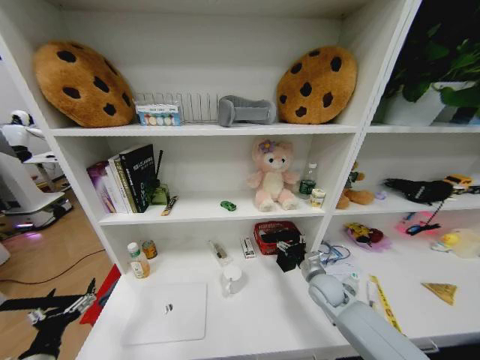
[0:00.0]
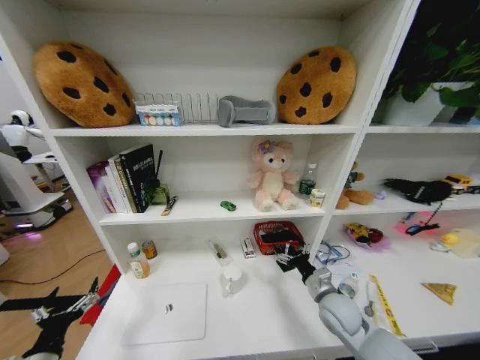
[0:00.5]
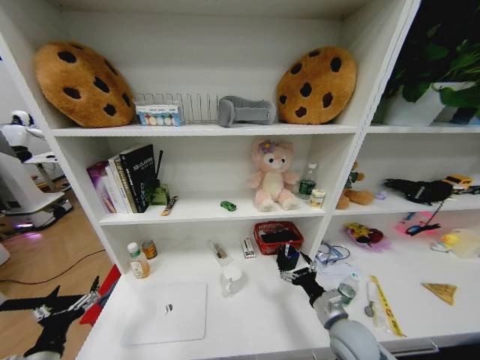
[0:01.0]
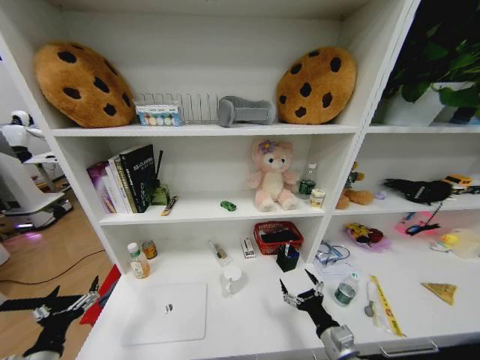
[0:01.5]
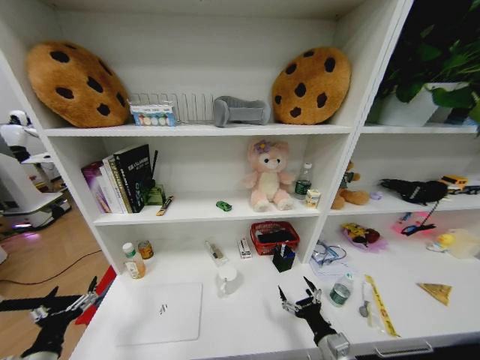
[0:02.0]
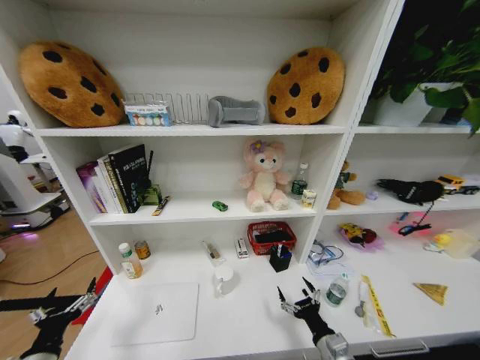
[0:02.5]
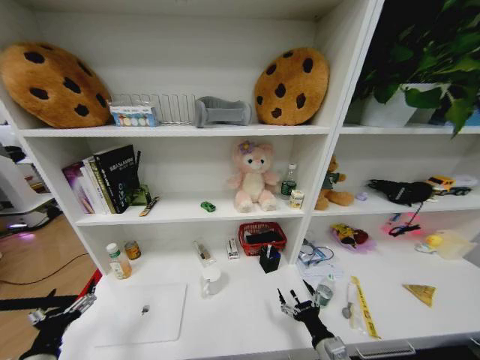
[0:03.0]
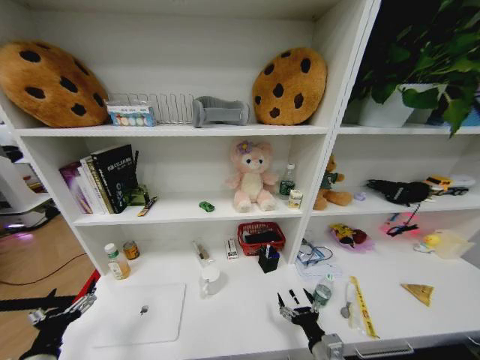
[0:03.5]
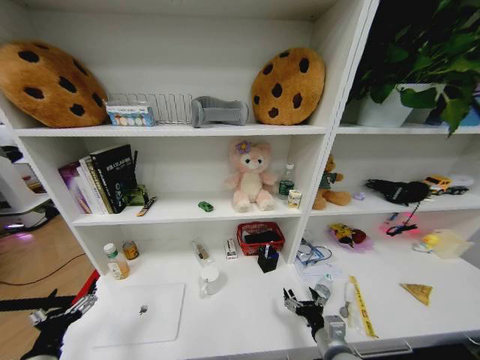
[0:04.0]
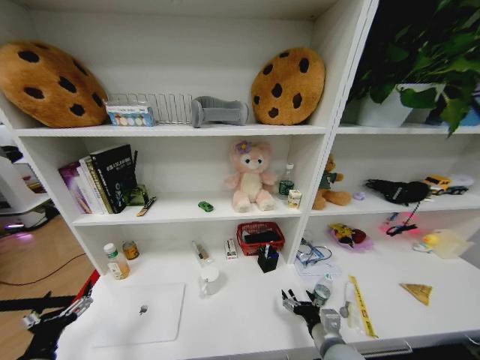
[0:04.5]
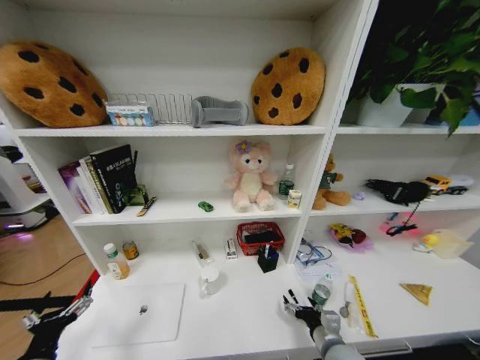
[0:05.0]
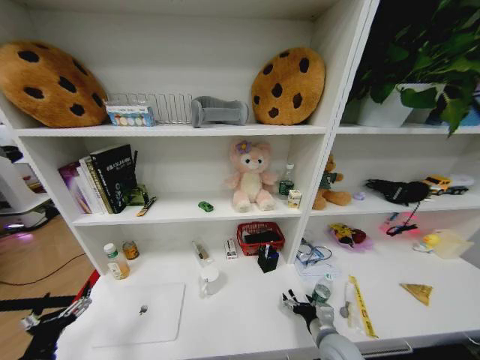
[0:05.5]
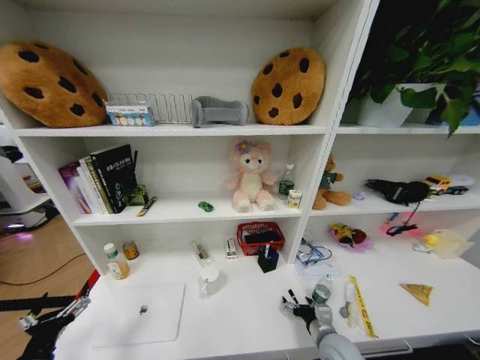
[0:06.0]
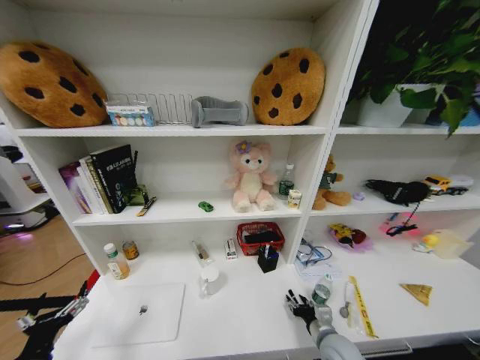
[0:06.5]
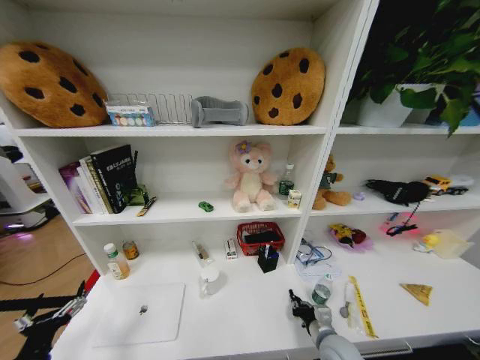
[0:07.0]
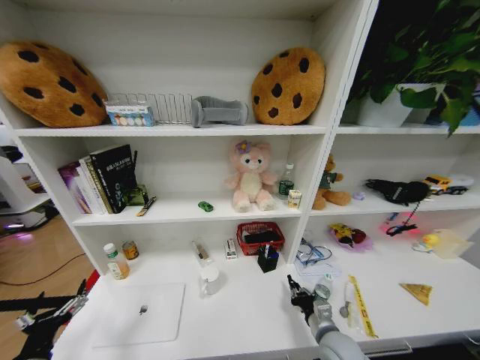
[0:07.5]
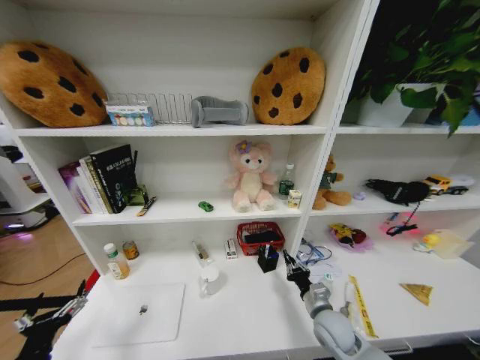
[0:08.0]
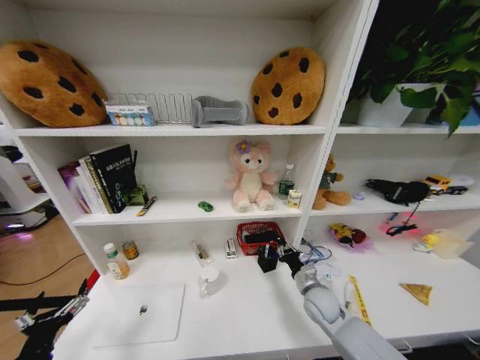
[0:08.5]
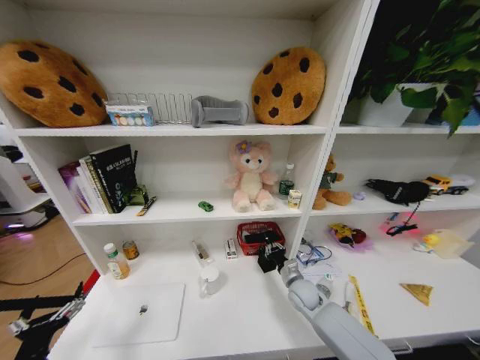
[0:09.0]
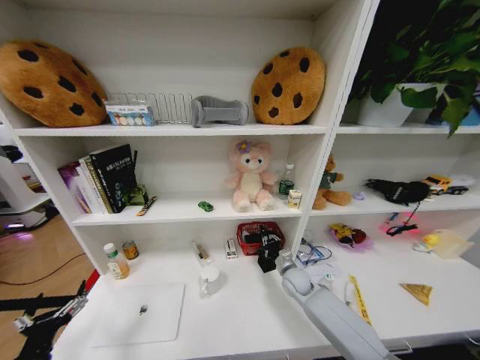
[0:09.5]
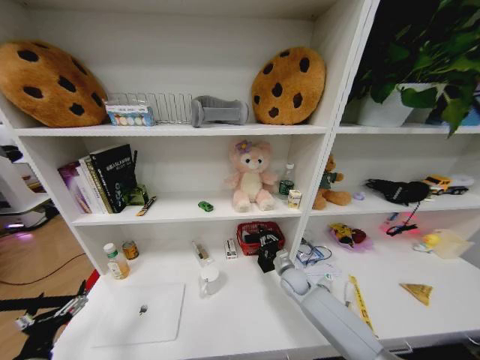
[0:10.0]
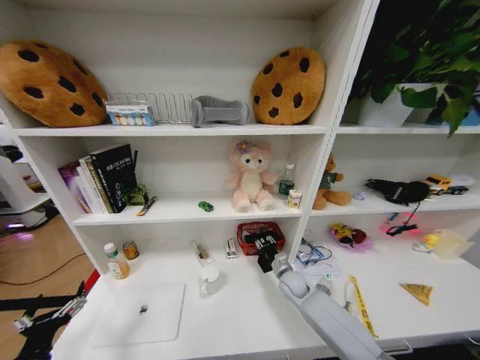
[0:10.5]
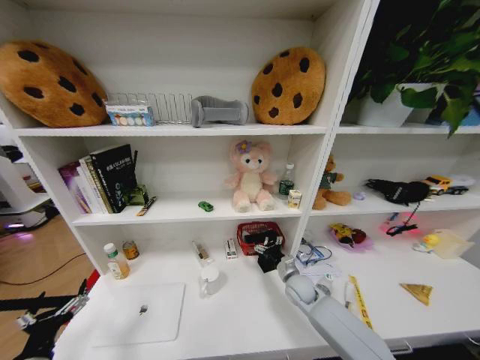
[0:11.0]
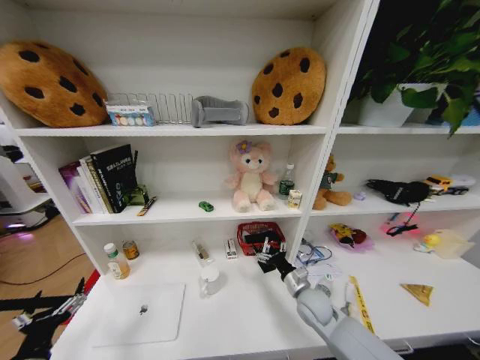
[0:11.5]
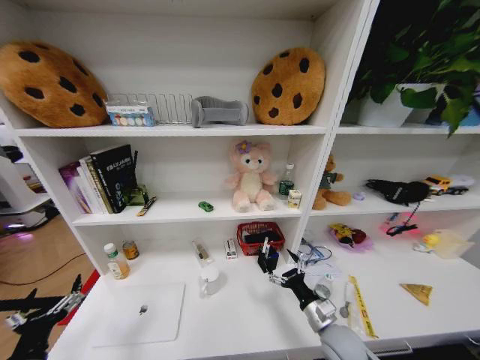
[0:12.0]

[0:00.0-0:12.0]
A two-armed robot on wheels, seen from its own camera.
Task of the whole recording: Organize the objects on the table.
0:00.0 to 0:02.0: The right gripper is displaced backward by about 20 cm.
0:04.0 to 0:06.0: The right gripper is displaced forward by approximately 5 cm.
0:06.0 to 0:08.0: The right gripper shifts about 5 cm forward, and closes its fingers.
0:08.0 to 0:10.0: The right gripper goes some 15 cm forward.
0:10.0 to 0:12.0: The right gripper heads backward, covering approximately 20 cm, and opens up.

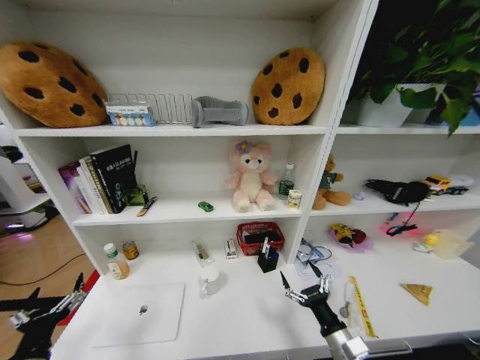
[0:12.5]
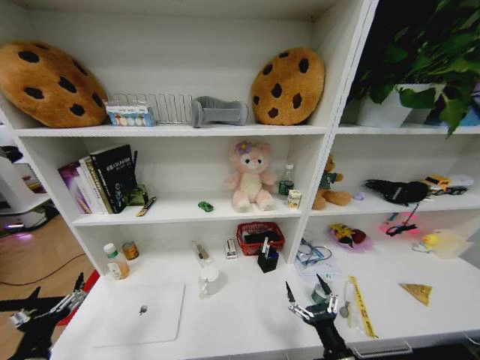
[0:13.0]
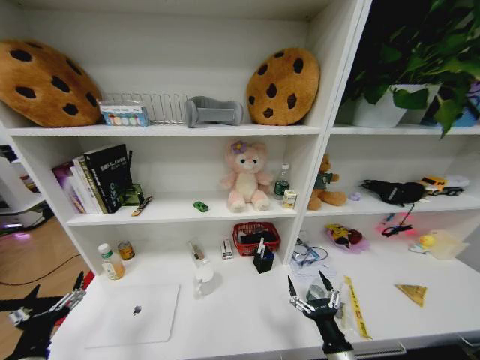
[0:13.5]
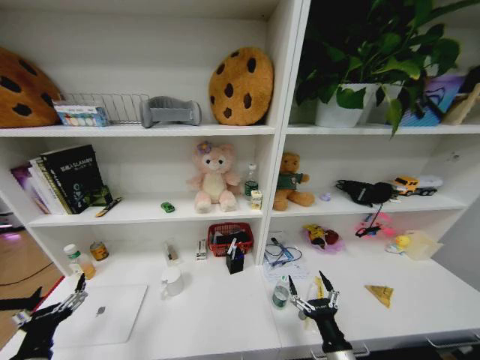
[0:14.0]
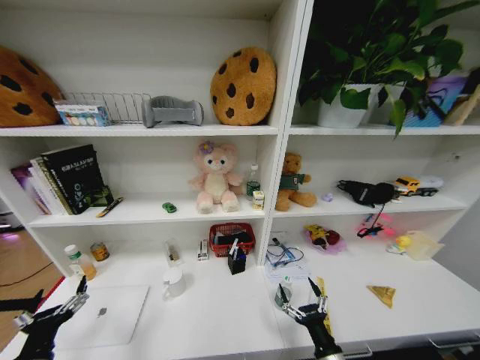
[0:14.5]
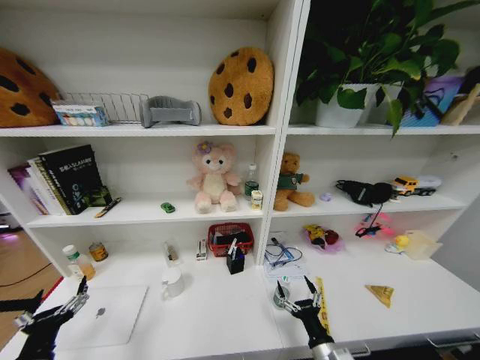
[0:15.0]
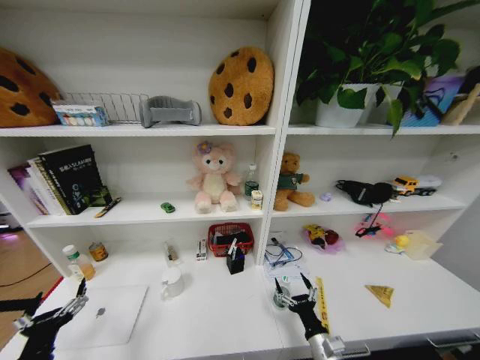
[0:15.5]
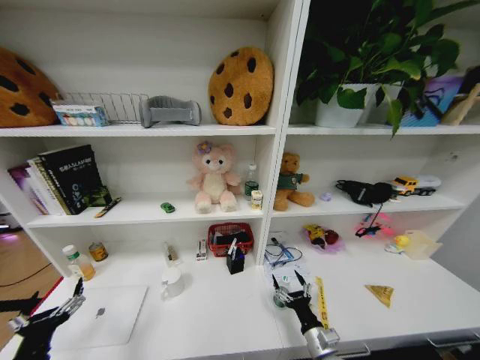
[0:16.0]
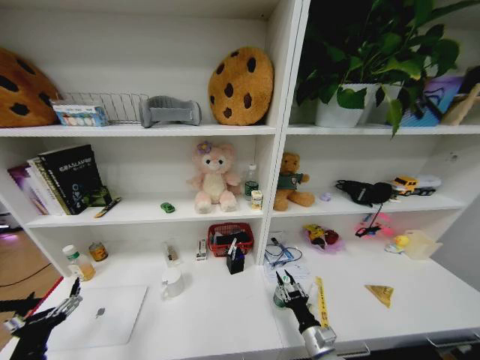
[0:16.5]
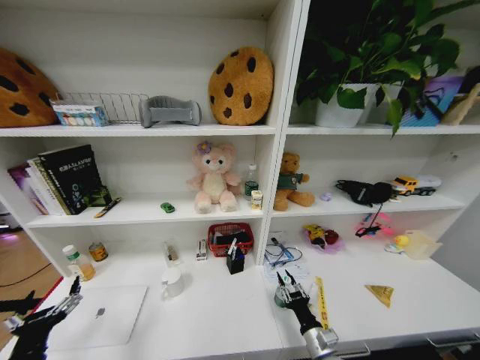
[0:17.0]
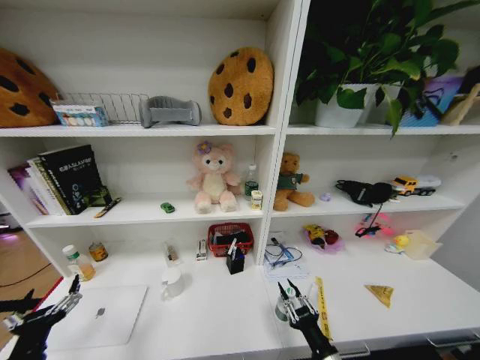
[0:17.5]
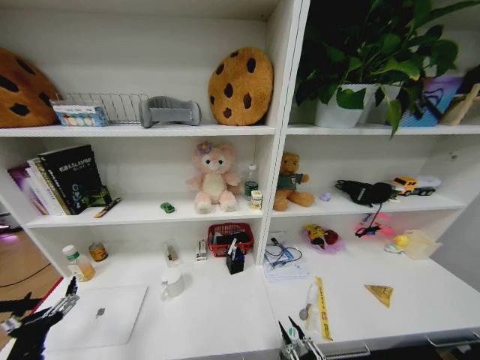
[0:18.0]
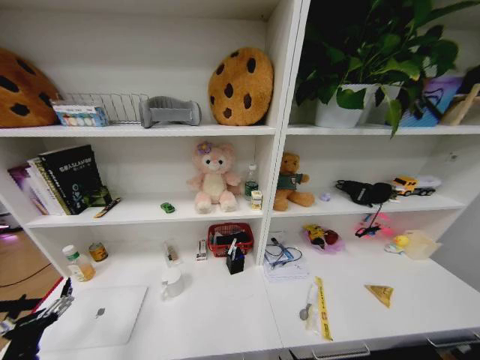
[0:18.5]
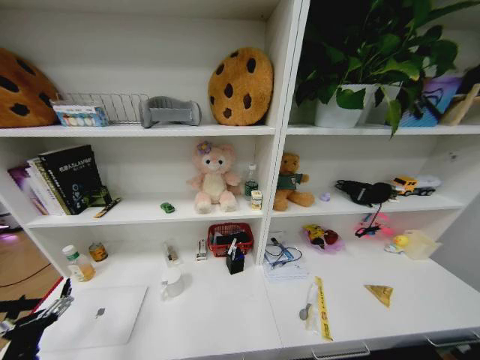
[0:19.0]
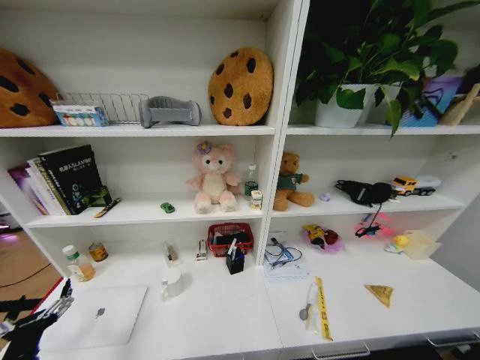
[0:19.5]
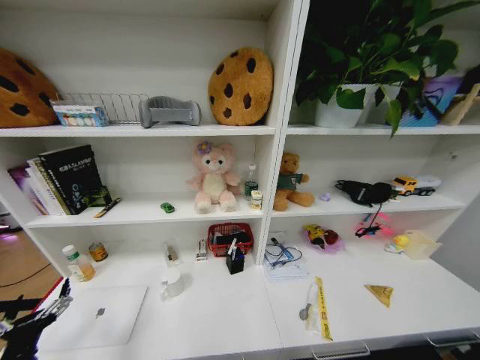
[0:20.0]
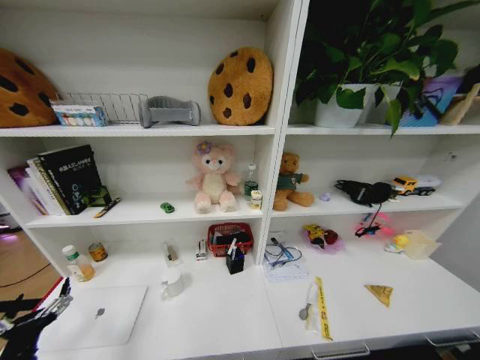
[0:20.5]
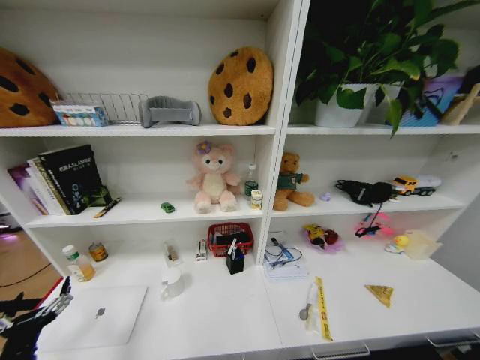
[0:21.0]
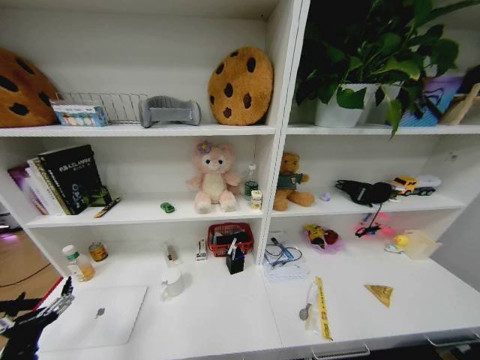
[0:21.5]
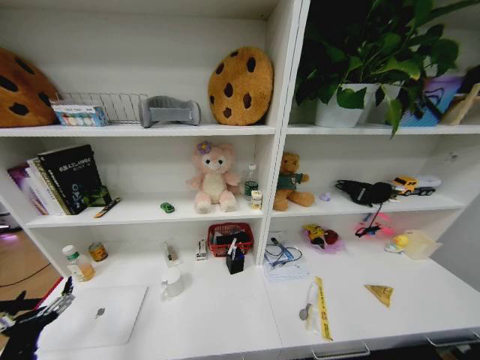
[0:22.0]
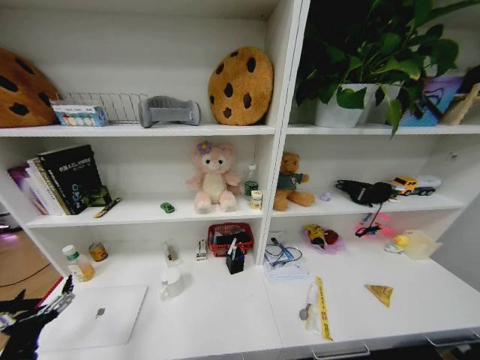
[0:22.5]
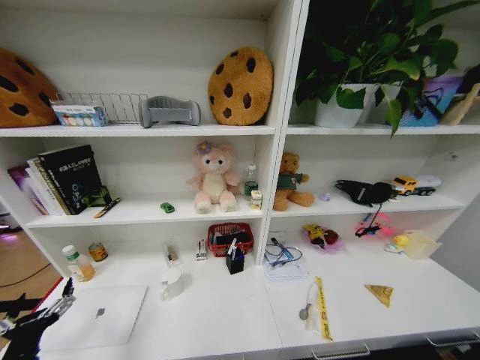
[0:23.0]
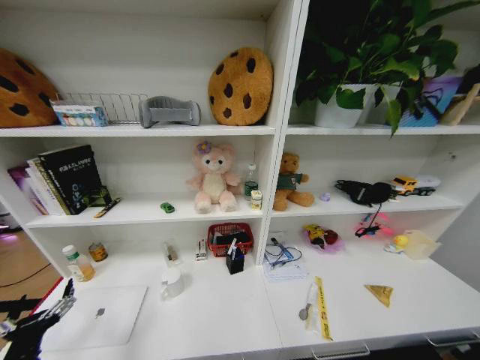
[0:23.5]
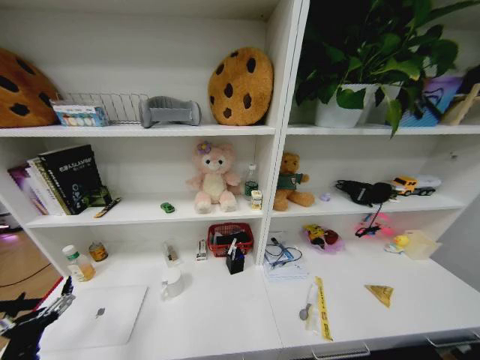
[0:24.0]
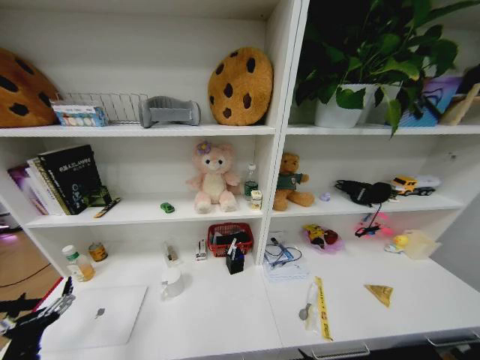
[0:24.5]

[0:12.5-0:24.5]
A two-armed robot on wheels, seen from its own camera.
Task of the whole recording: Organize the objects on the table.
0:12.5 to 0:14.5: The right gripper changes place by roughly 5 cm.
0:14.5 to 0:16.5: The right gripper moves forward, roughly 5 cm, and closes.
0:16.5 to 0:18.5: The right gripper heads backward, covering about 20 cm.

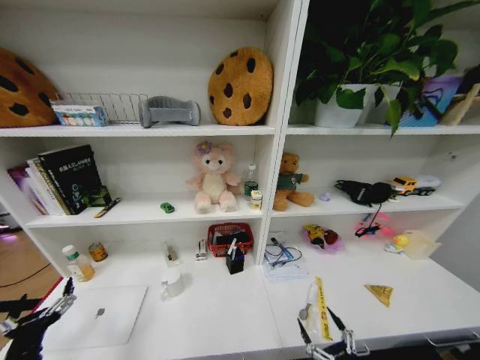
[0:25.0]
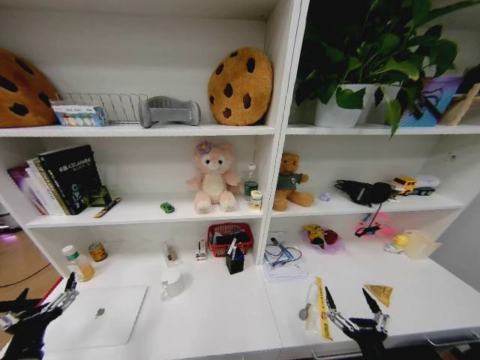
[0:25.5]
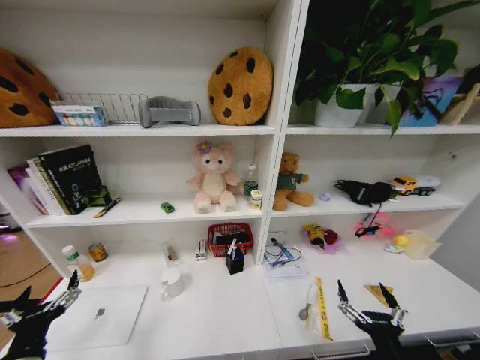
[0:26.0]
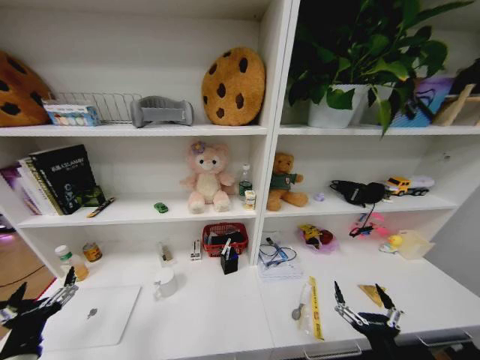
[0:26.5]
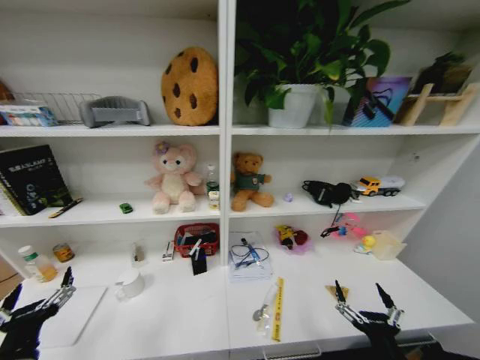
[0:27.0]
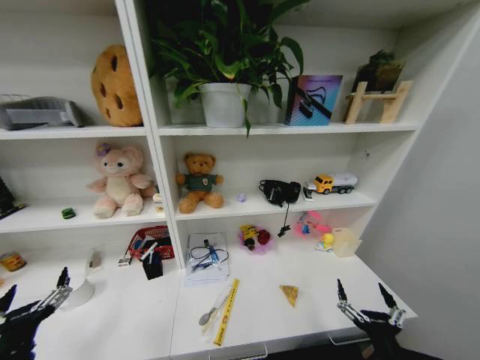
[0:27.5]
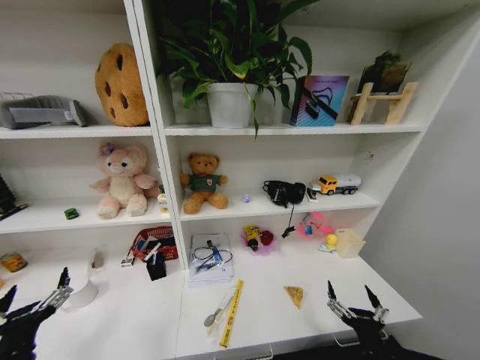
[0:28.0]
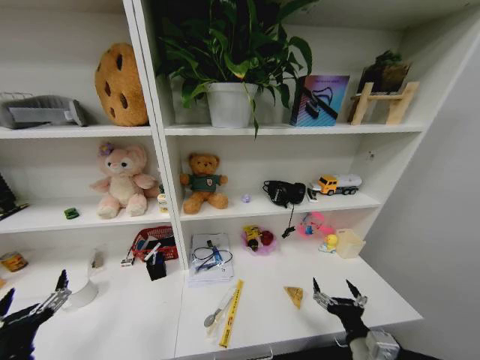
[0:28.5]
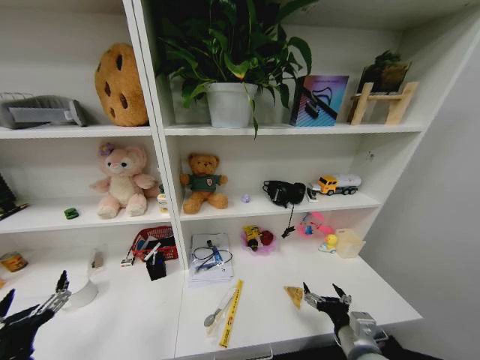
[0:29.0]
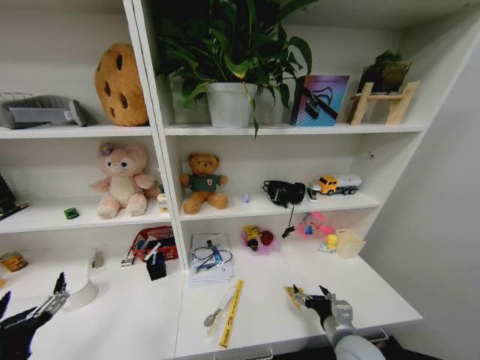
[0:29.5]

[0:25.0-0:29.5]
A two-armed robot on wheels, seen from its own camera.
Task of the whole recording: Organize the objects on the table.
0:25.0 to 0:27.0: The left gripper changes place by some 5 cm. Meanwhile the right gripper shifts about 10 cm upward.
0:27.0 to 0:29.5: The right gripper shifts some 10 cm forward.
